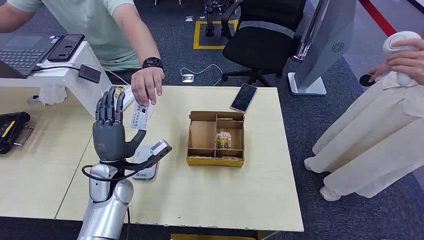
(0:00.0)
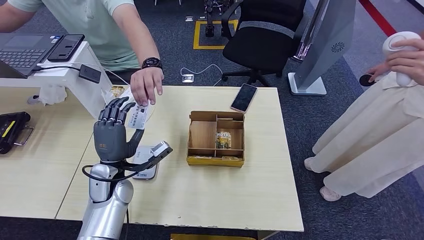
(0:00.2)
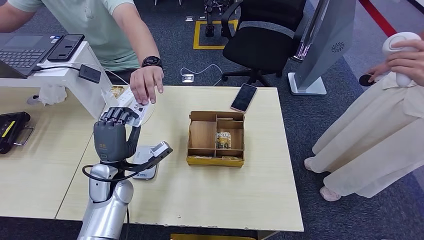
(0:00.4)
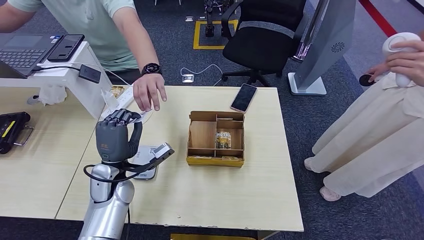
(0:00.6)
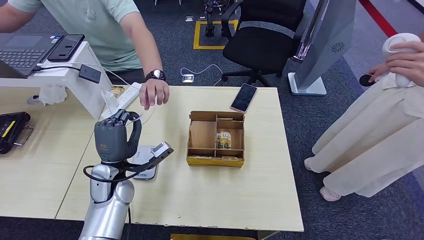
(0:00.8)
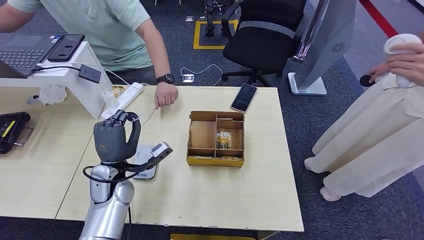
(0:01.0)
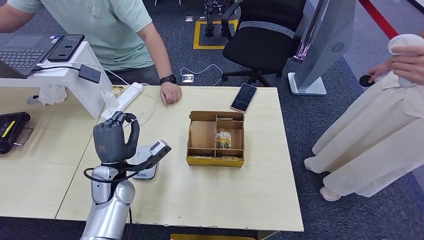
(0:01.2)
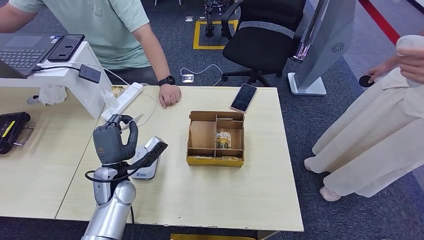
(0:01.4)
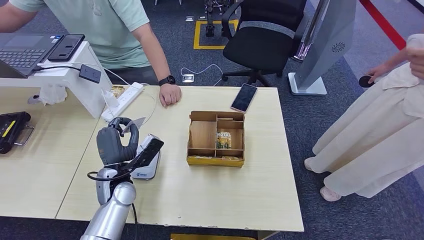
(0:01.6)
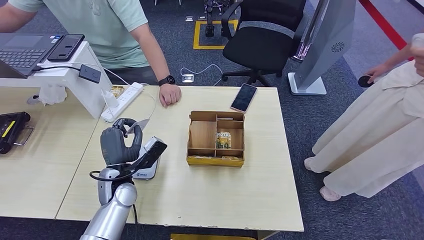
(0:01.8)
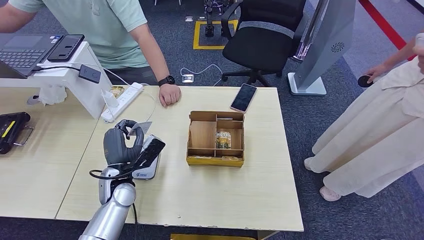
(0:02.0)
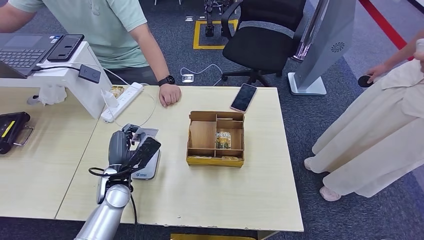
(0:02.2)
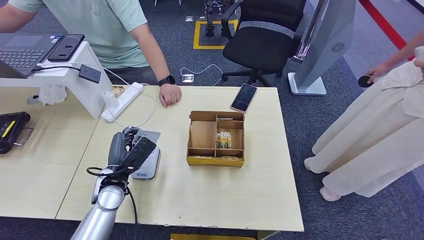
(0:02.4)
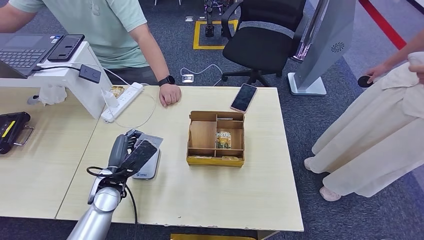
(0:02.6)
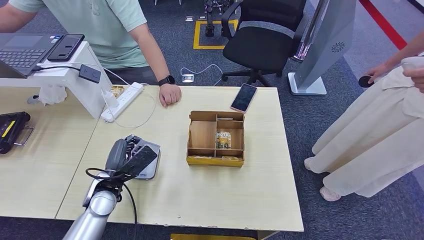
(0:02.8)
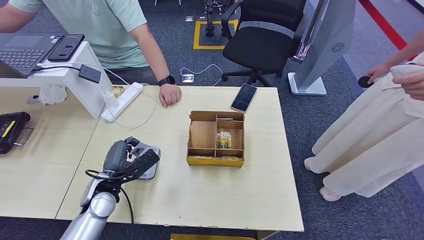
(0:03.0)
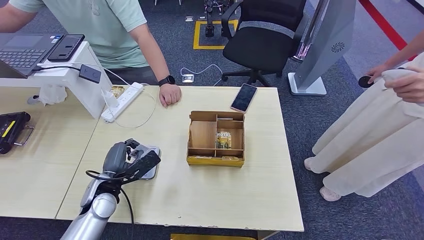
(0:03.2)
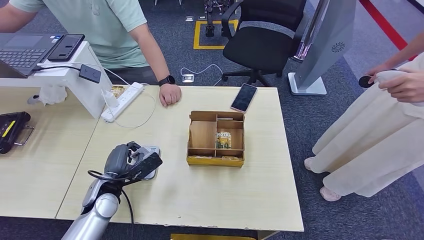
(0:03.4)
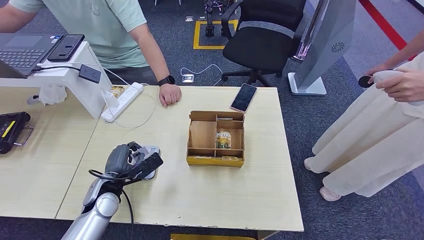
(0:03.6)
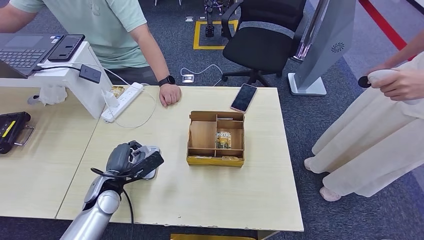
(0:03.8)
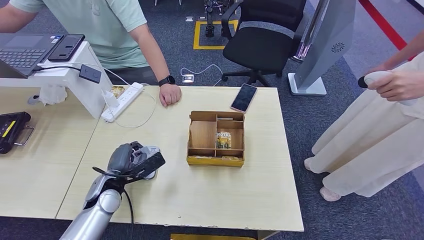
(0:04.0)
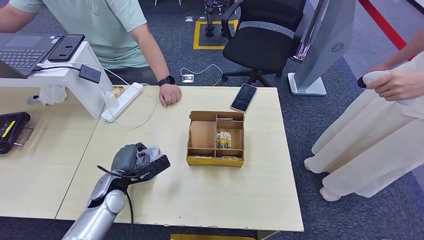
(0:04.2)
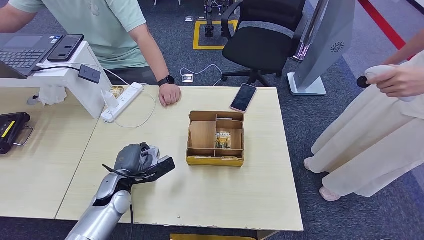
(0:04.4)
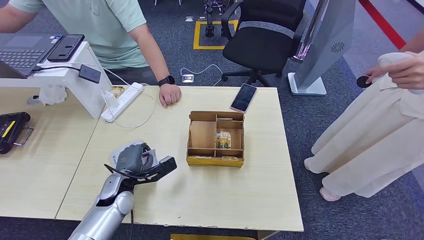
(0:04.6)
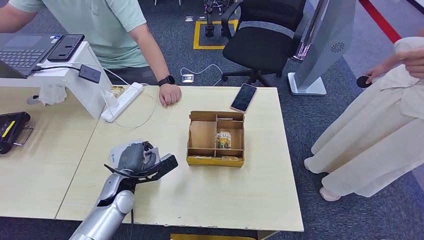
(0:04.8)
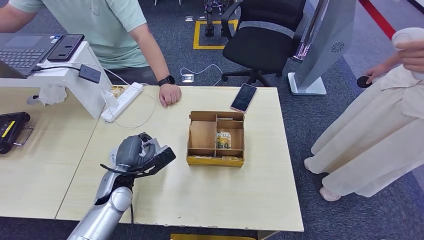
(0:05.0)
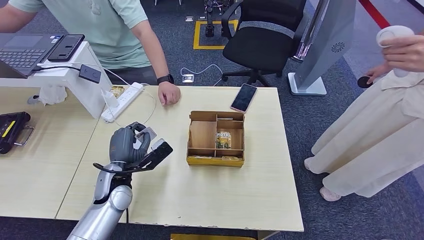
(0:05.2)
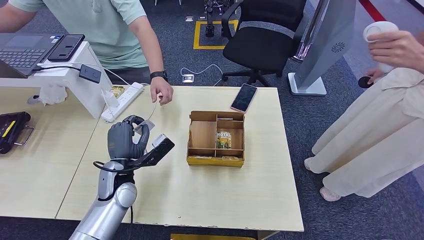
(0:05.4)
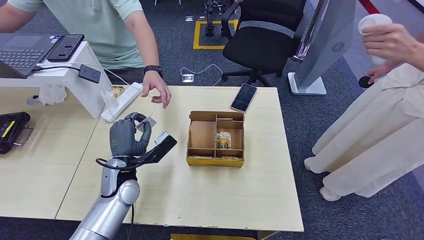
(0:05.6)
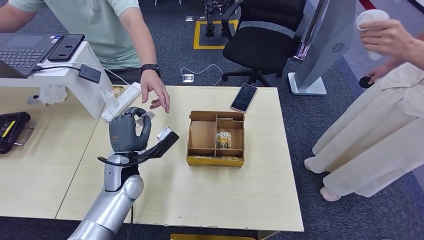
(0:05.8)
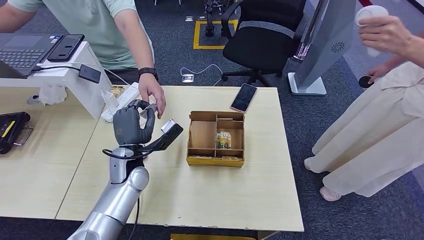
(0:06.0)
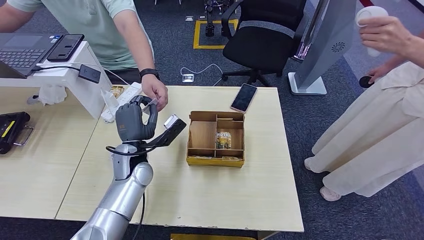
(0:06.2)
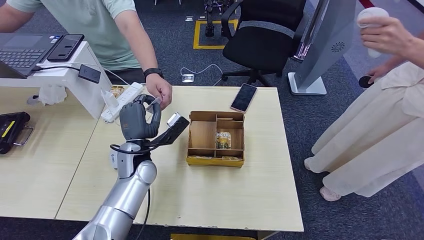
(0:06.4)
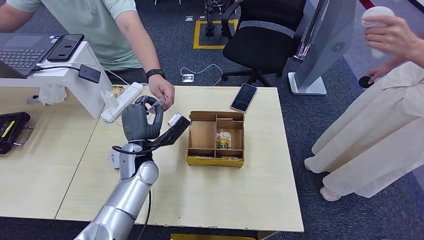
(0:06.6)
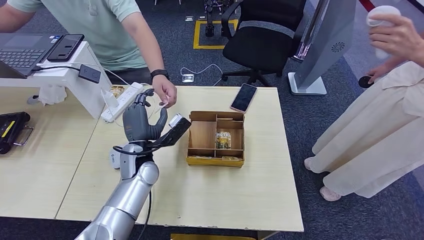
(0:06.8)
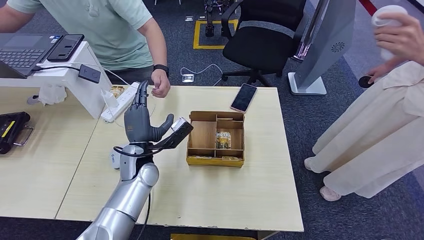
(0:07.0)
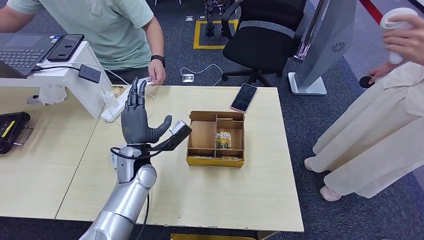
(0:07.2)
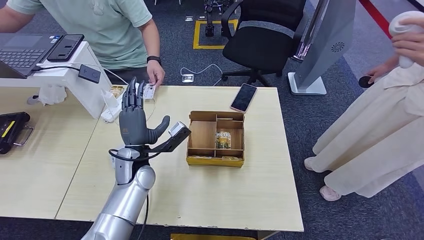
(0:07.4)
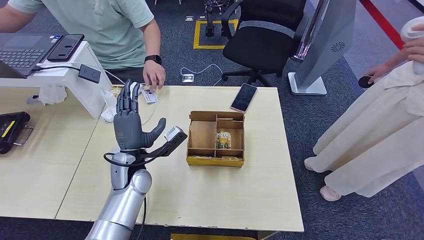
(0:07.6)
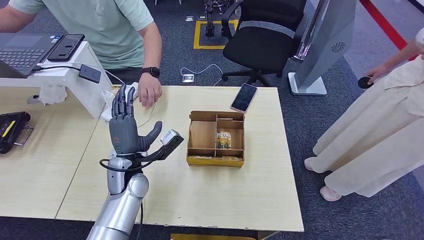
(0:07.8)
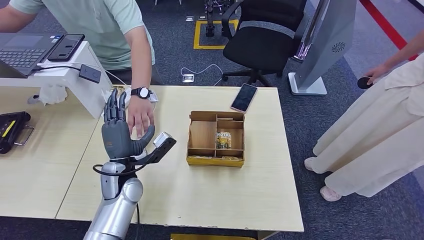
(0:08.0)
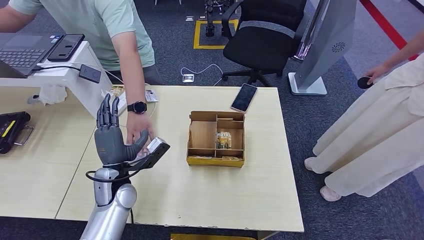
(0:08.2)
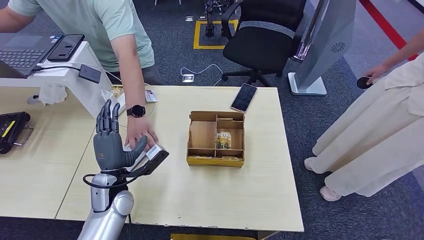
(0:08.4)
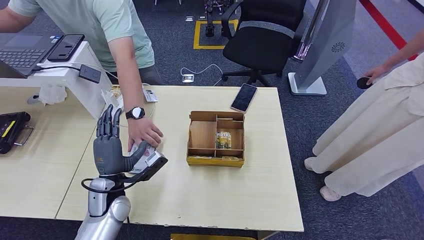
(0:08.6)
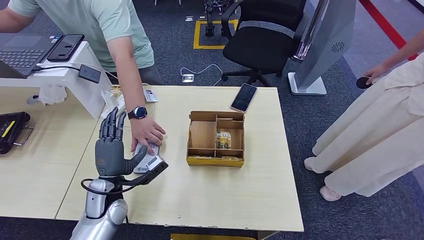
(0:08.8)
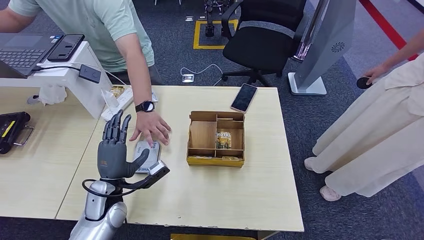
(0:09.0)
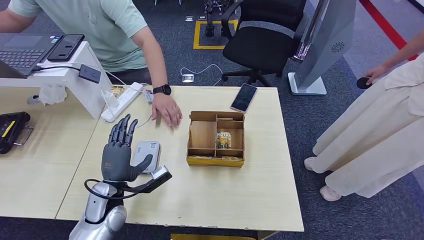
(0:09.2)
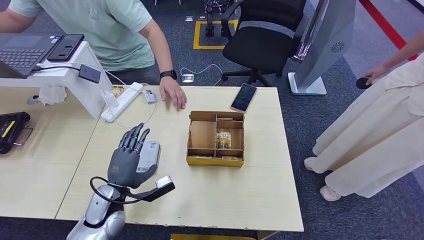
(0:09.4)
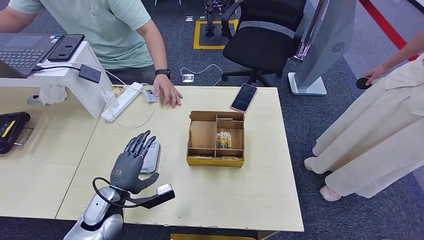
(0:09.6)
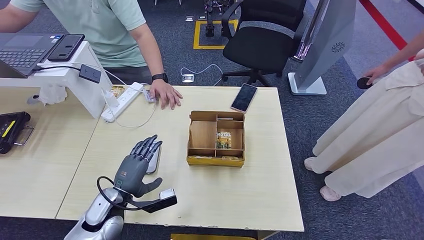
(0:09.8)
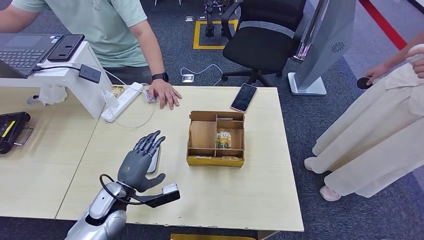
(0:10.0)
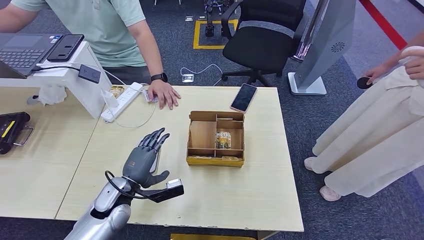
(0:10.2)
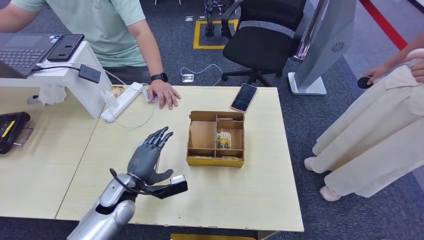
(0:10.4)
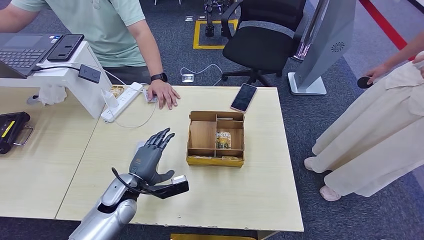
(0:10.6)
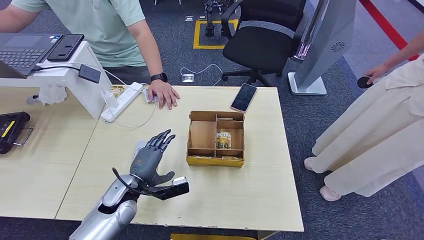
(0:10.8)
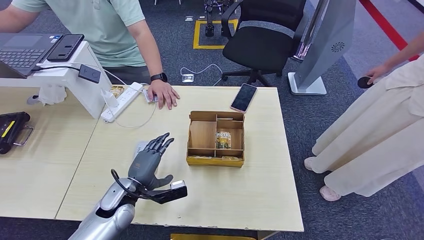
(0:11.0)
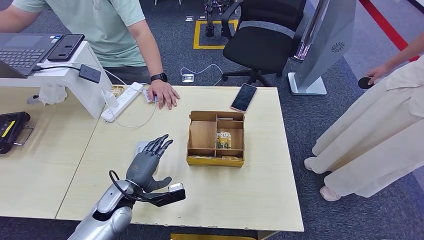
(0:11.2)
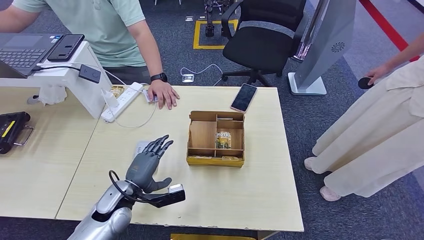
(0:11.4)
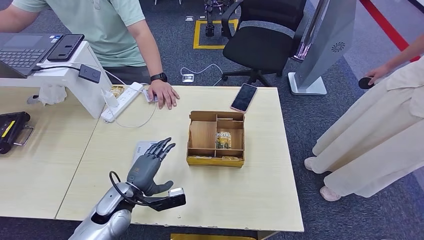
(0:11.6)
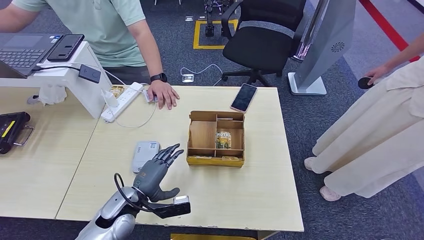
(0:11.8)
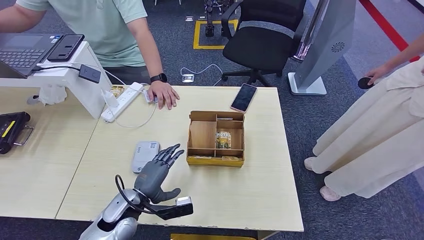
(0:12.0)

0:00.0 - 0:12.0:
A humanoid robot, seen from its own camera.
Step, 0:00.0 - 0:01.6: Take the ID card from the person's hand.
Step, 0:02.0 - 0:04.0: Place the ID card on the card reader.
Step, 0:04.4 - 0:06.8: Hand the ID card to the person.
0:04.4 - 0:06.0: The left hand moves upward and to the right, about 10 cm.
0:06.0 - 0:07.6: There are only small adjustments of the hands.
0:07.6 - 0:09.0: The left hand travels backward and to the left by about 10 cm.
0:10.4 - 0:12.0: The hands move only a little.

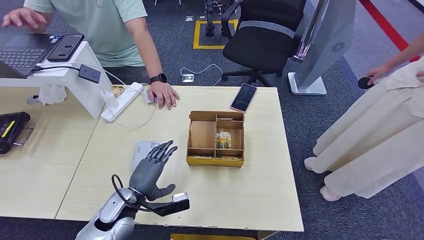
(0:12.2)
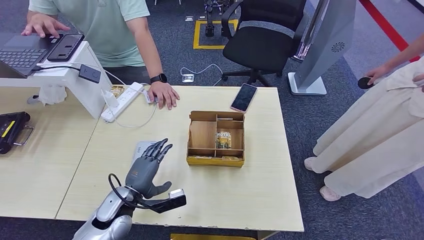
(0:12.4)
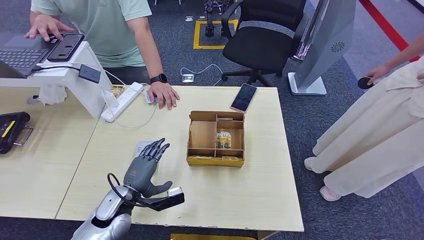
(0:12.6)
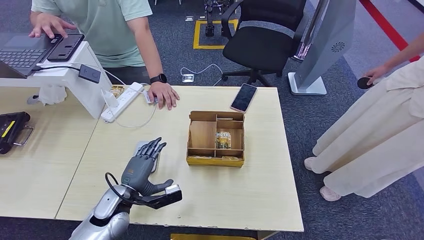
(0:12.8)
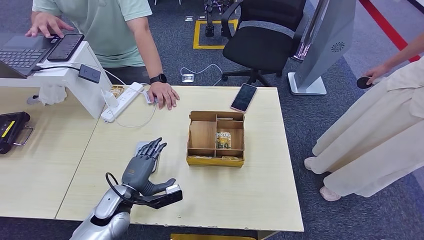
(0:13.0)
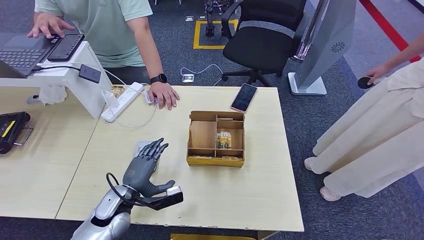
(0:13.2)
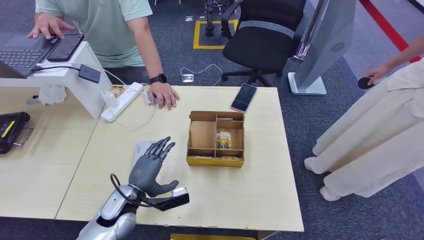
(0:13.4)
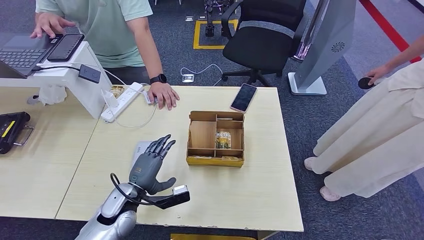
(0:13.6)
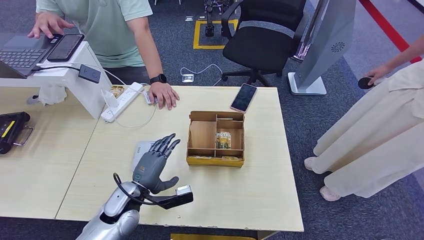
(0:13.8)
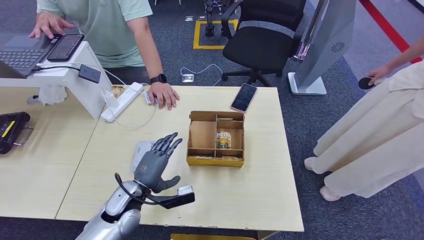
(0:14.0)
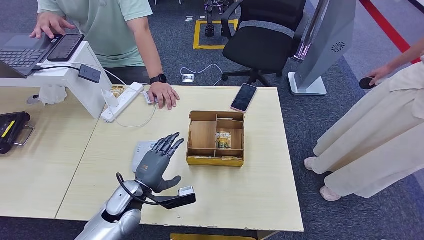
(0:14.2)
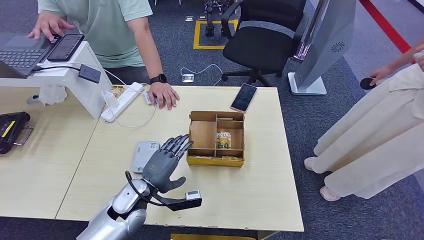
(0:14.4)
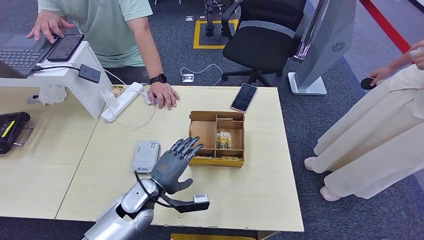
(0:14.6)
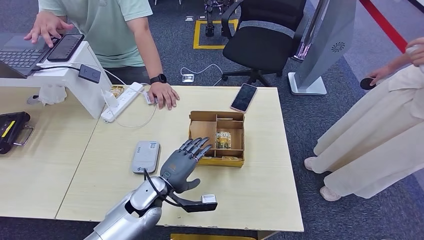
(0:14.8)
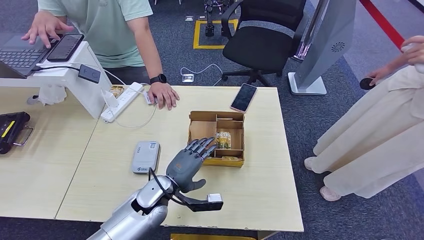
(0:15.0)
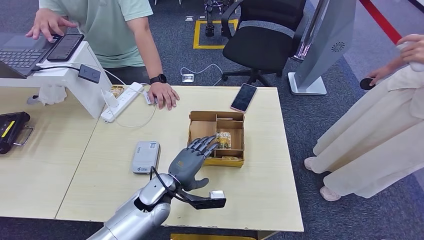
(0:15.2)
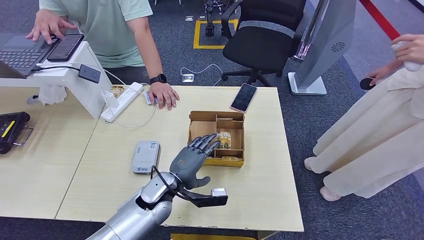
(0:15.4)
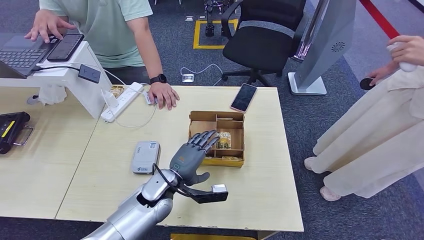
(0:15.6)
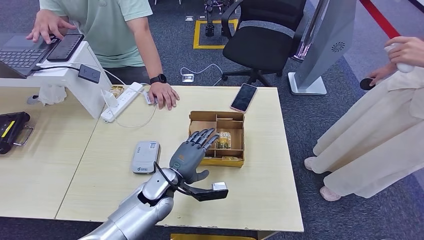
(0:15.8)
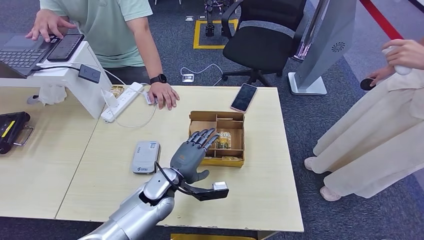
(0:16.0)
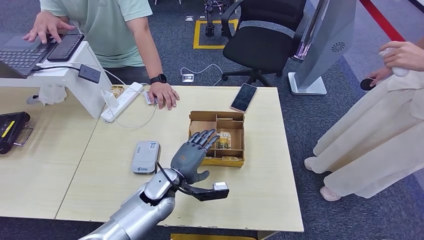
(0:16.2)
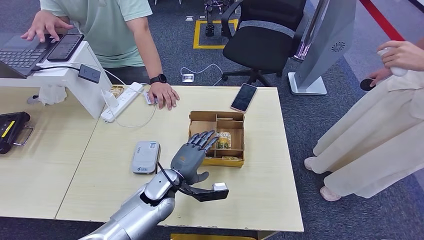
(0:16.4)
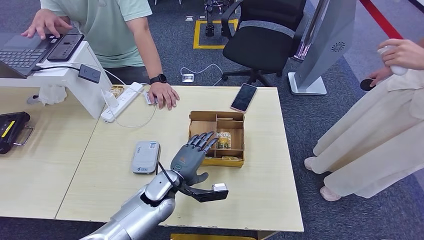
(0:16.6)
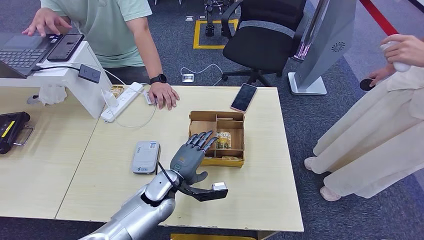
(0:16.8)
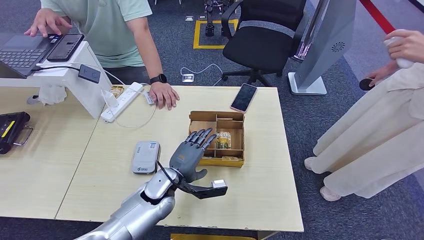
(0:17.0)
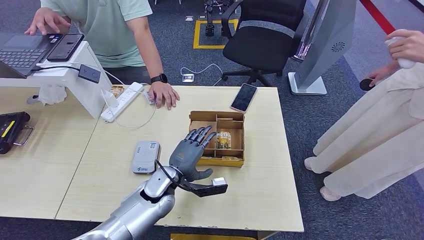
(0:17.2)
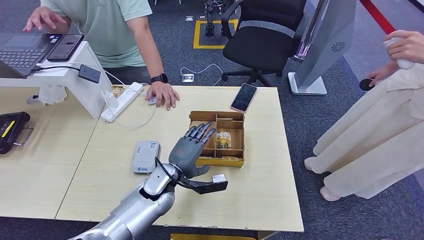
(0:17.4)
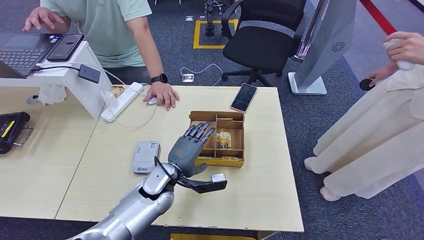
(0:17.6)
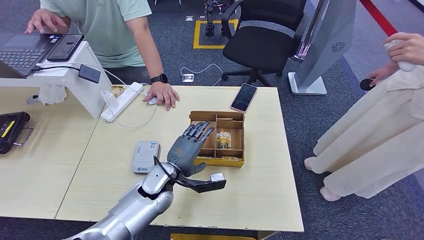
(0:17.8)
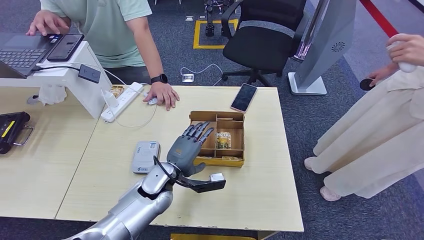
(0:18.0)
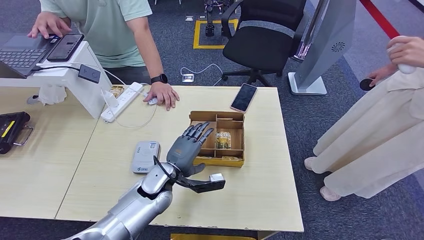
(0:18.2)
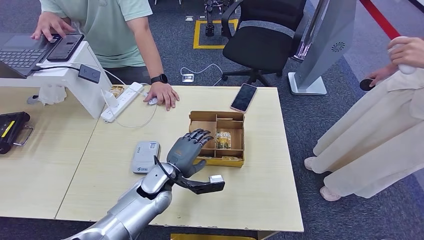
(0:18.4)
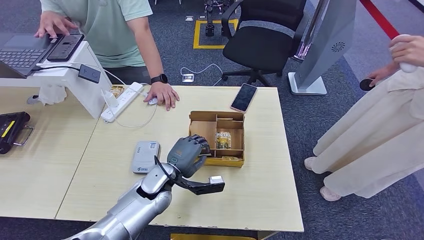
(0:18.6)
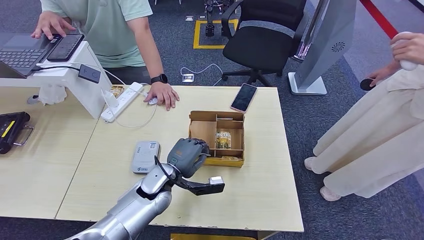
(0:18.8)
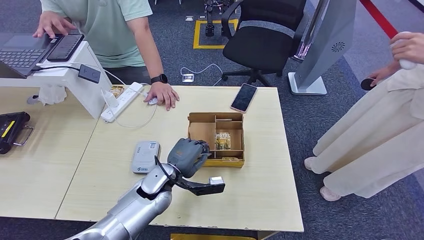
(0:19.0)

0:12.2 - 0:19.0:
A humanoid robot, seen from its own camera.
0:12.2 - 0:13.6: The hands make only small movements.
0:13.6 - 0:15.0: The left hand shifts approximately 10 cm to the right.
0:15.0 - 0:17.6: The hands stay close to where they were, moving slightly.
0:17.6 - 0:19.0: Neither hand changes place.
